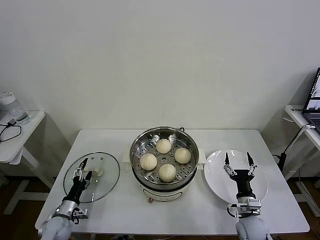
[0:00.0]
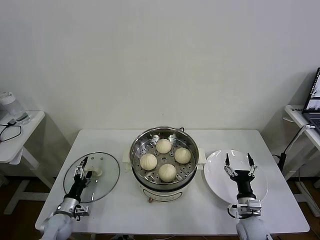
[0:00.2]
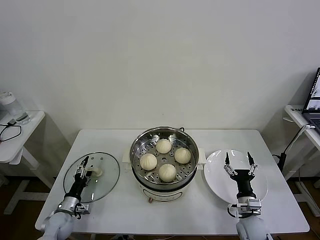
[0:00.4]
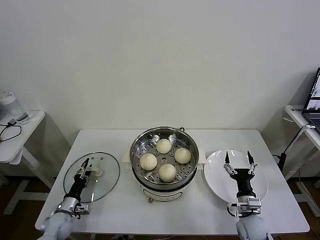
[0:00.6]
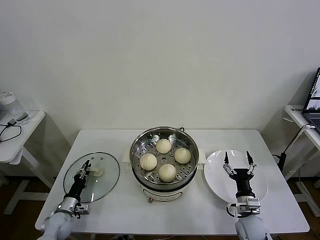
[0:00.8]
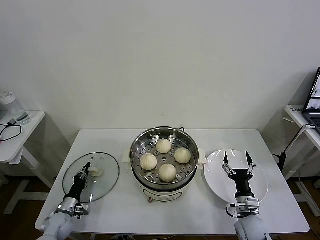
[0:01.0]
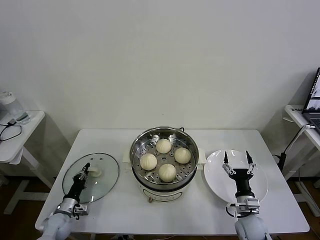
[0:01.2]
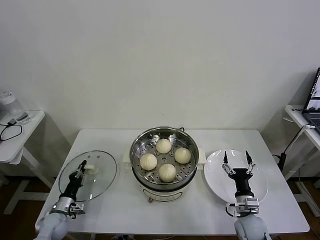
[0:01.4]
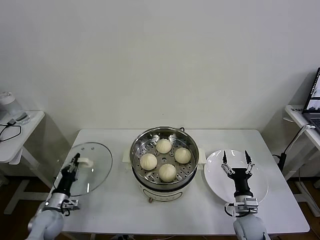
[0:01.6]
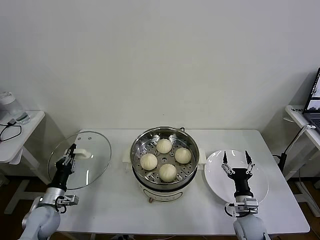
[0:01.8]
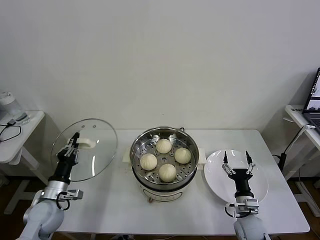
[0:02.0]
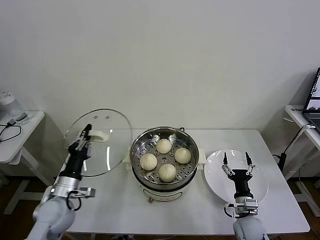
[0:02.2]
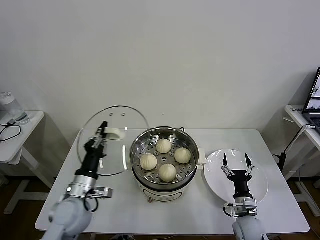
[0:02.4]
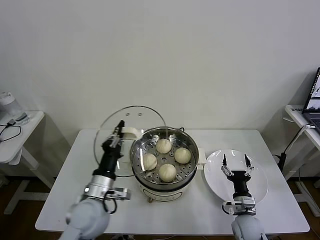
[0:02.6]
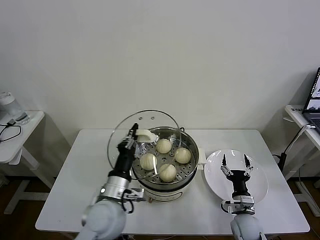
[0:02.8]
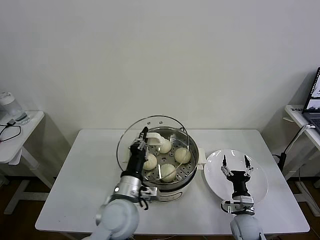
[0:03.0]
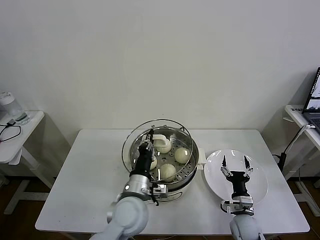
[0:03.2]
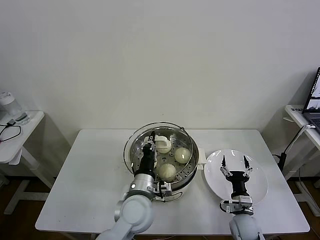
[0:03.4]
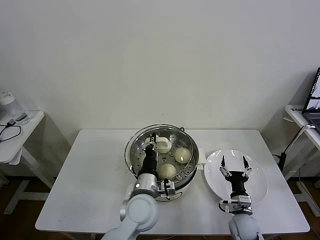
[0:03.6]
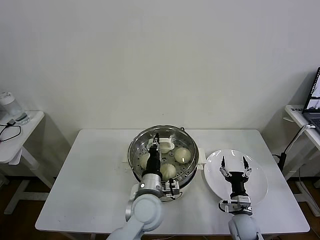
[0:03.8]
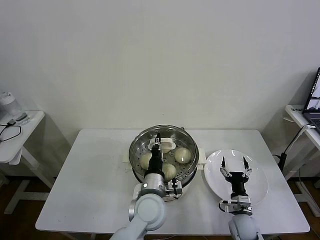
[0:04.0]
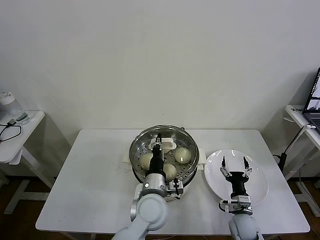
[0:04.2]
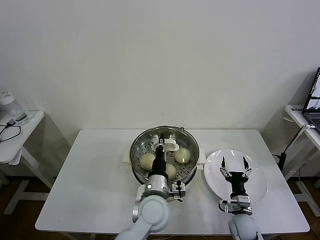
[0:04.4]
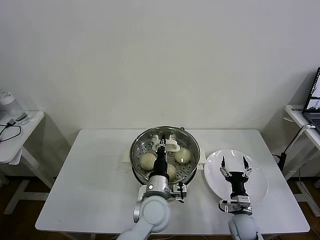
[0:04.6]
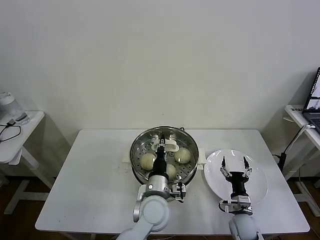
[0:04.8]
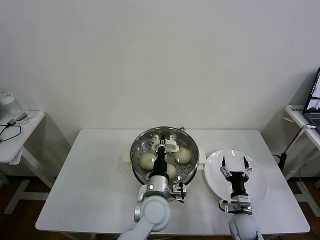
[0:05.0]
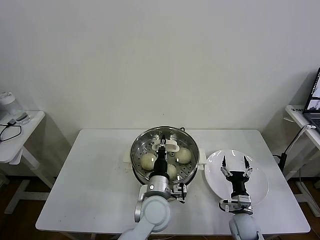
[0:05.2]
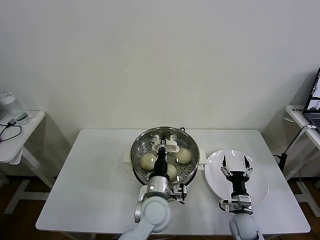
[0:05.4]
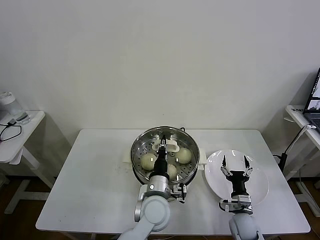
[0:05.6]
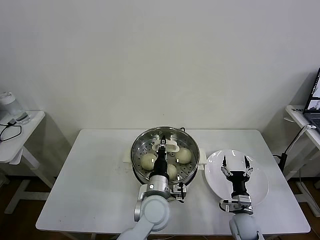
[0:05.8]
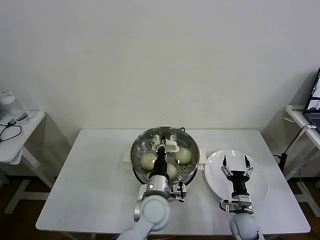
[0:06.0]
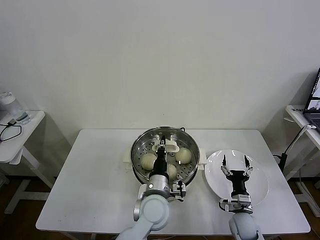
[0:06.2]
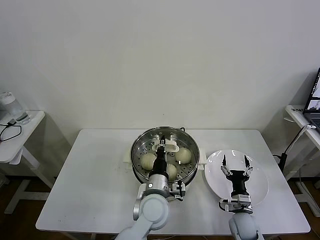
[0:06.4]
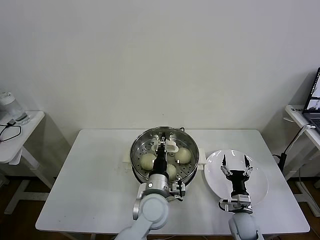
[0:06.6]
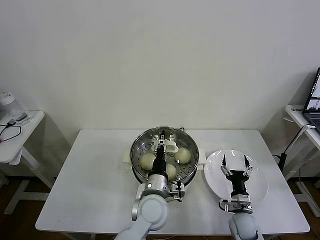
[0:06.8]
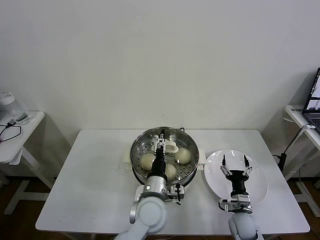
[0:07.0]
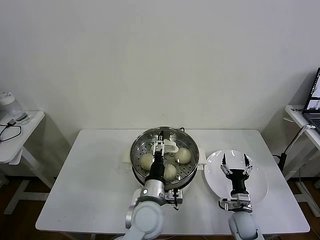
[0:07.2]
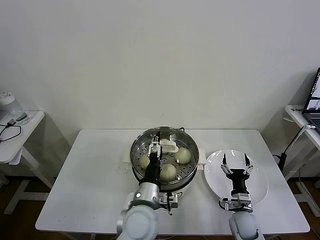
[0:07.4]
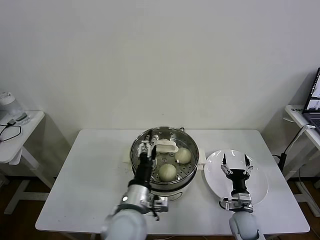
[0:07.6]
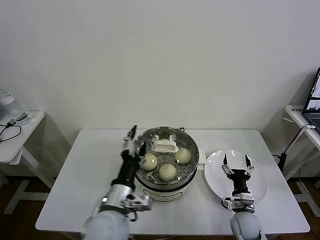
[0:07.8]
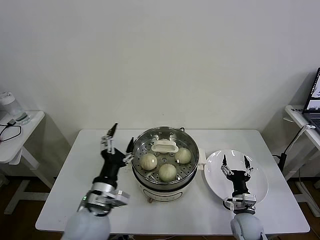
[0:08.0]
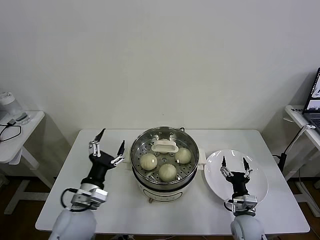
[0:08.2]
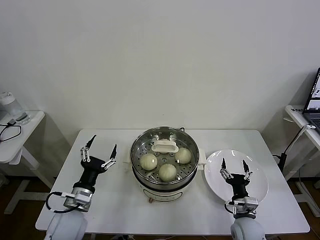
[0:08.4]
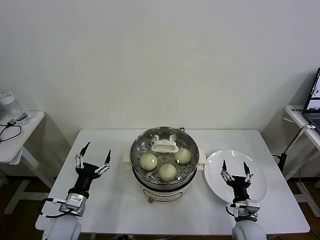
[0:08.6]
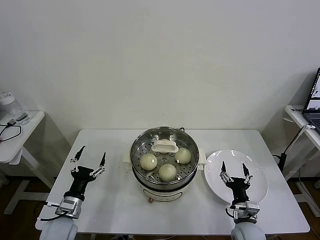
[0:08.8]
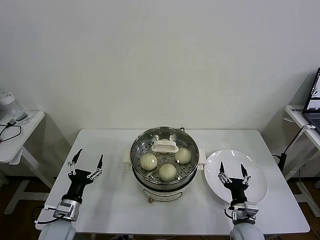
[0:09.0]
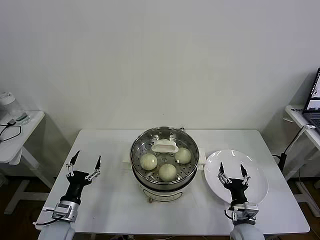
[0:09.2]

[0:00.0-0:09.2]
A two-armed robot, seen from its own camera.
Task of the whole recording: take steamed baozi put them in steamer then cover it.
Step, 0:01.4 to 0:07.2: Place the pot lid on the steamer with left gripper.
0:00.0 to 0:01.6: The left gripper closes up.
0:01.6 to 0:03.0: The left gripper travels to the right and upward by about 35 cm.
0:03.0 to 0:04.6: The left gripper heads to the right, covering roughly 10 cm.
0:04.6 to 0:06.2: Neither gripper changes place.
0:06.2 to 0:07.6: The left gripper shifts roughly 5 cm to the left and backward, and opens.
0:07.6 to 0:09.2: The left gripper is displaced to the left and downward by some 30 cm. Meanwhile the right gripper moves some 5 cm.
